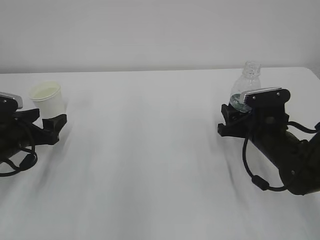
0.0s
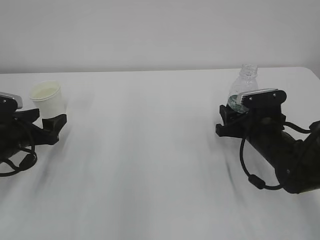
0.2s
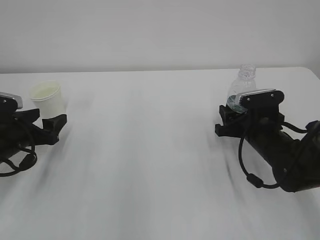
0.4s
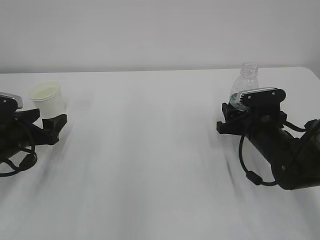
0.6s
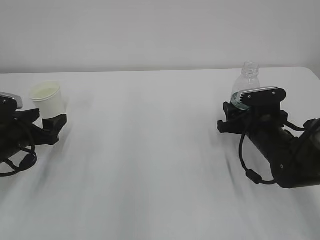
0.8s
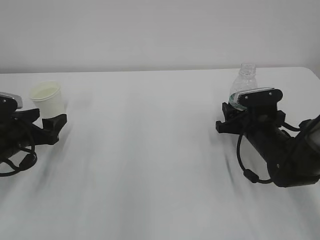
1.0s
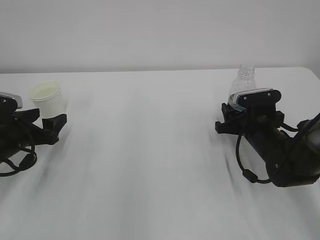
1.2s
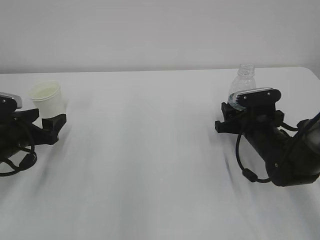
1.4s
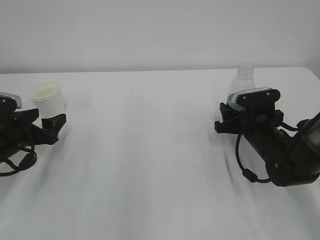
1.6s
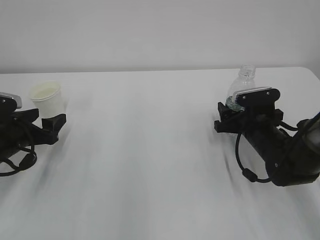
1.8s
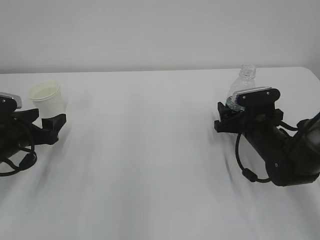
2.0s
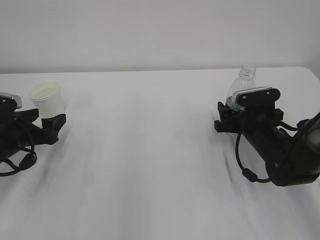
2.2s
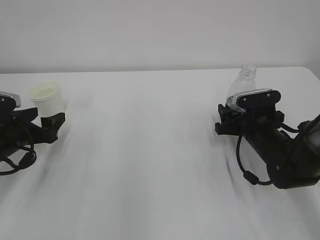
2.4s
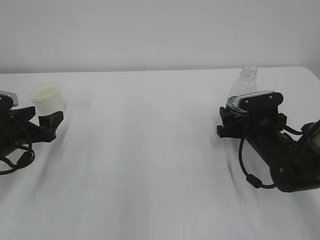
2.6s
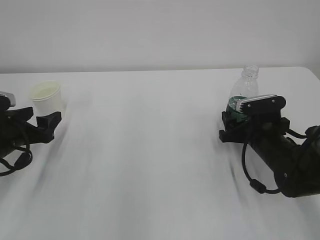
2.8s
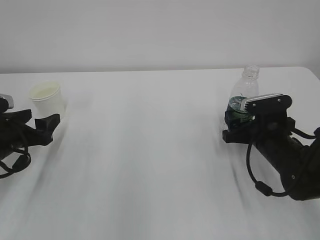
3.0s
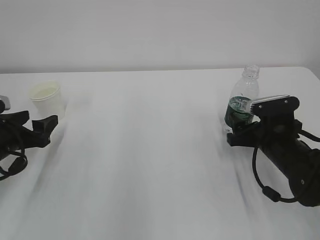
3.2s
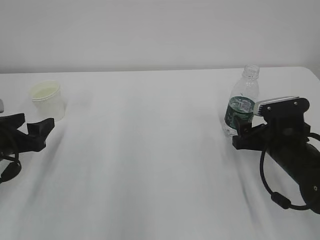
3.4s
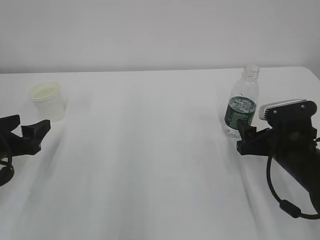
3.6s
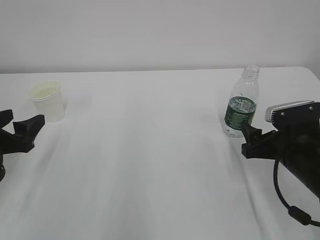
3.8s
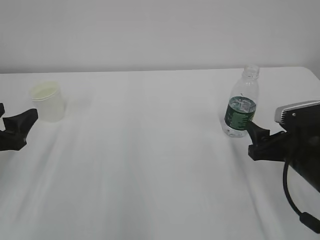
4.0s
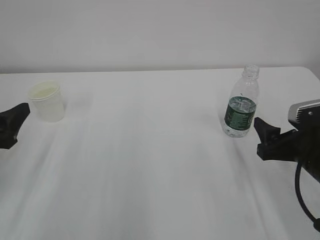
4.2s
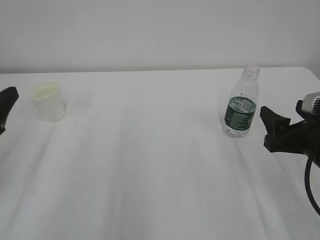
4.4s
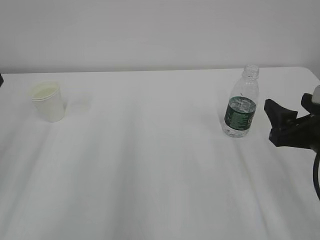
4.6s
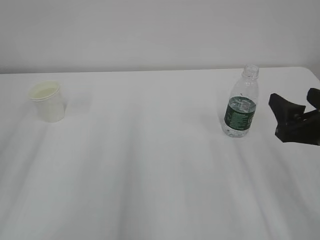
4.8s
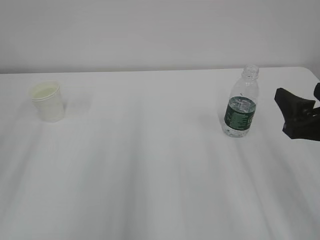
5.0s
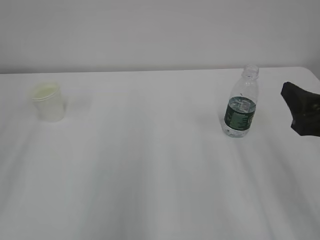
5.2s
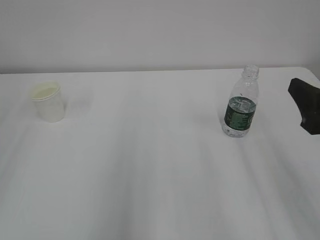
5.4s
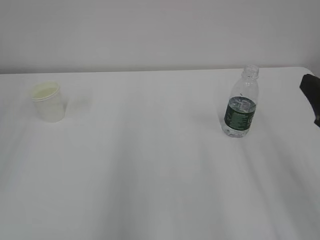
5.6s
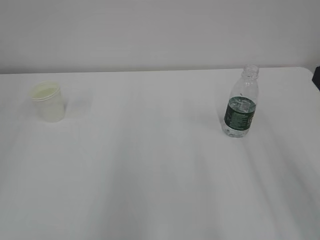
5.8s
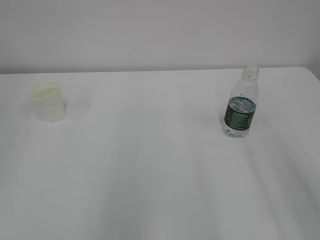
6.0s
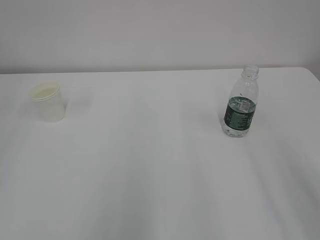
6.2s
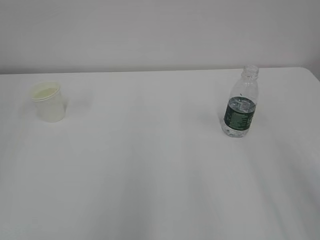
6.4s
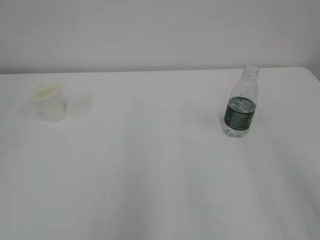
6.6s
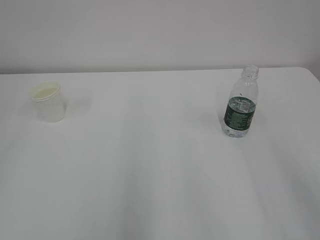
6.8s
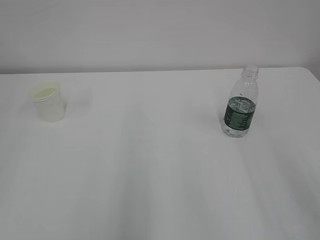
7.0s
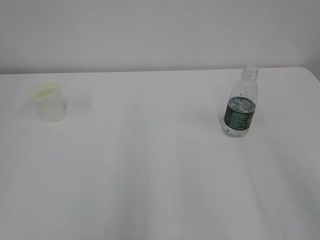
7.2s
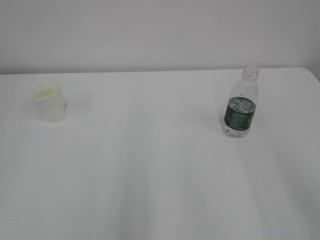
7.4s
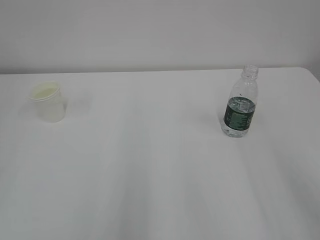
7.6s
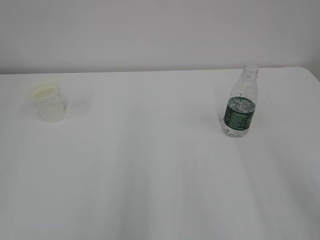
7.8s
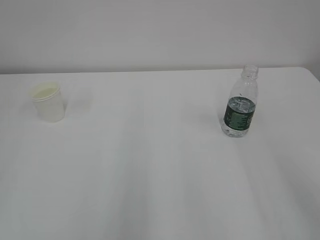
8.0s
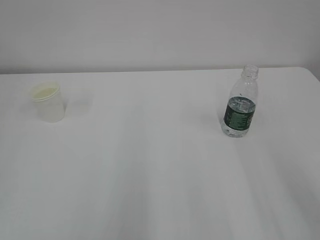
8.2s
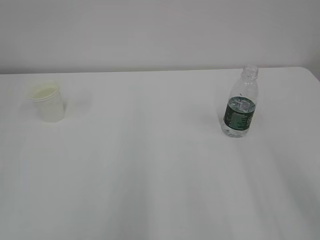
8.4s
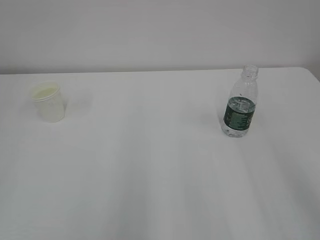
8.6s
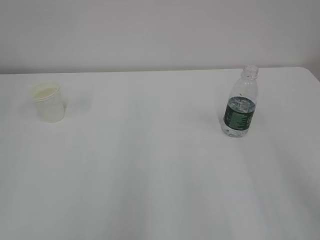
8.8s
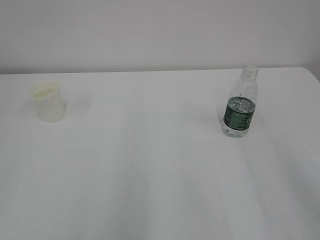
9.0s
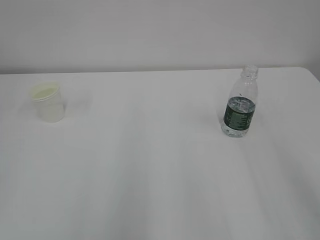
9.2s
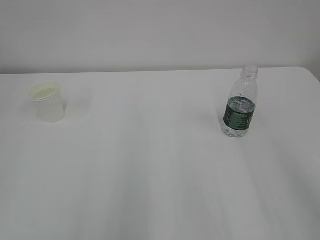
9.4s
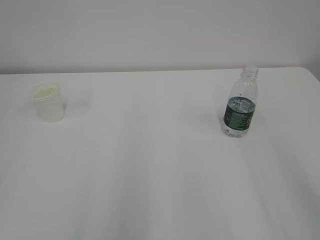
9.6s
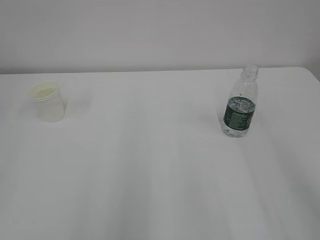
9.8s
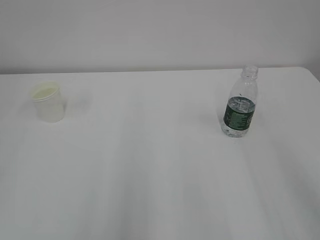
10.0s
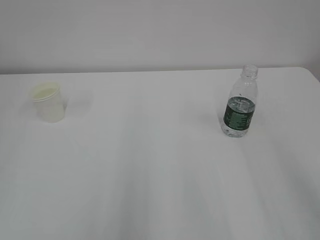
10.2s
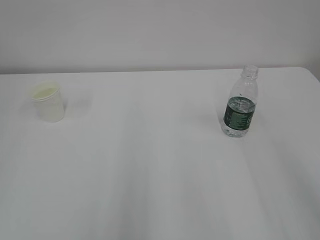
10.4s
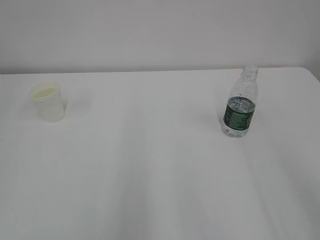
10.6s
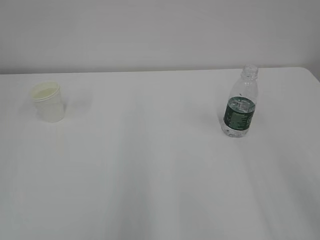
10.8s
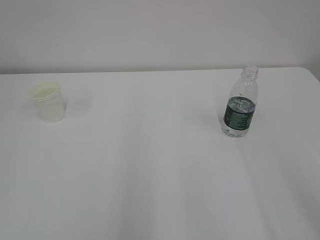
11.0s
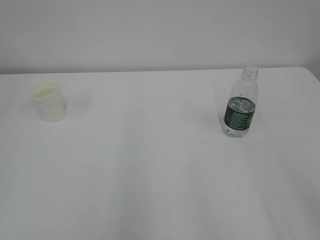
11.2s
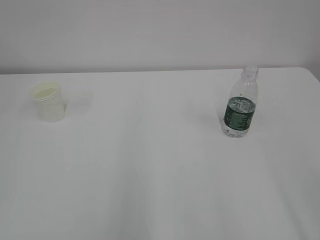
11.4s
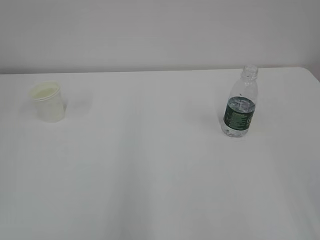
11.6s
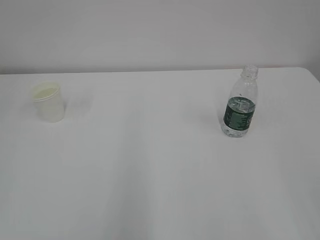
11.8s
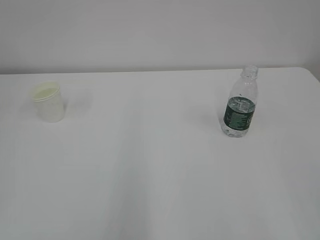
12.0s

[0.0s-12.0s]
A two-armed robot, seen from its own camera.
0.0s to 1.6s: There are only small adjustments of the grippers.
1.6s to 3.0s: The right gripper opens up.
3.0s to 4.4s: The left gripper moves upward and backward, approximately 15 cm, while the right gripper goes roughly 15 cm backward and upward.
4.4s to 6.0s: The grippers both shift upward and backward by roughly 20 cm.

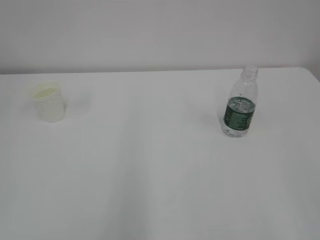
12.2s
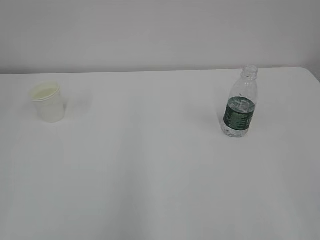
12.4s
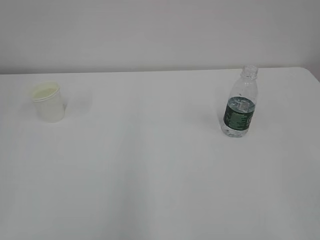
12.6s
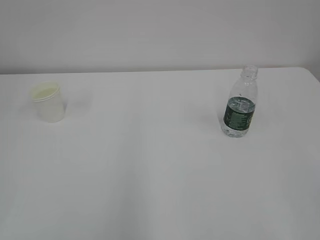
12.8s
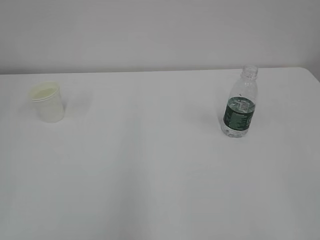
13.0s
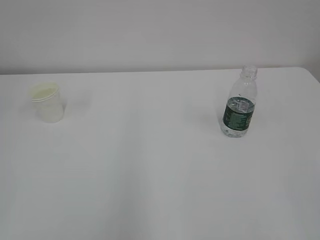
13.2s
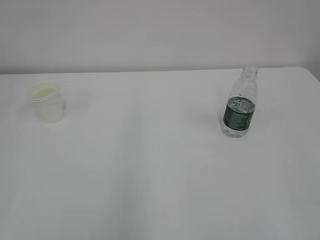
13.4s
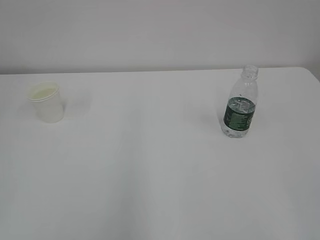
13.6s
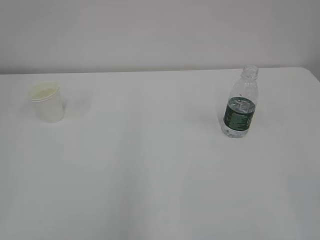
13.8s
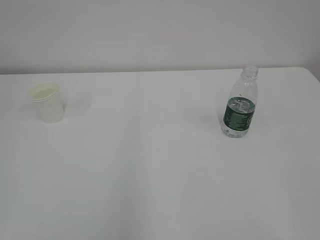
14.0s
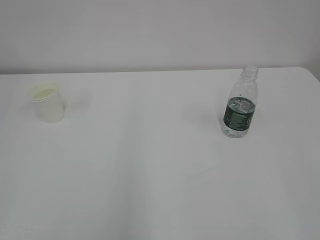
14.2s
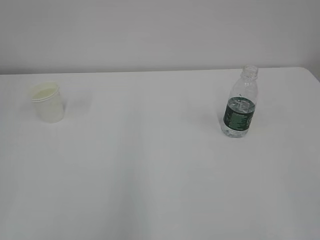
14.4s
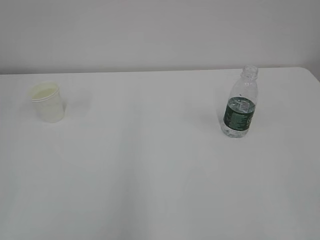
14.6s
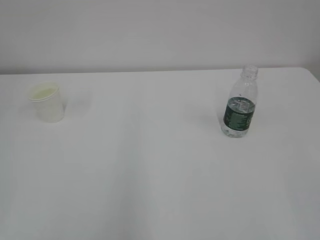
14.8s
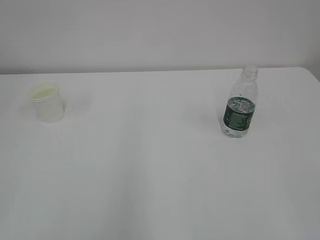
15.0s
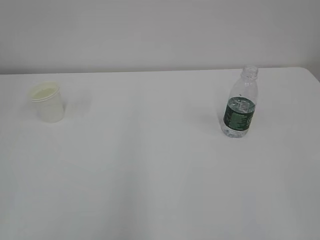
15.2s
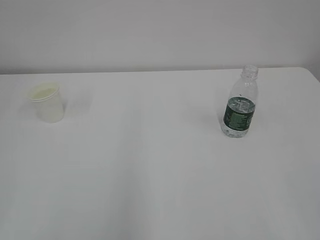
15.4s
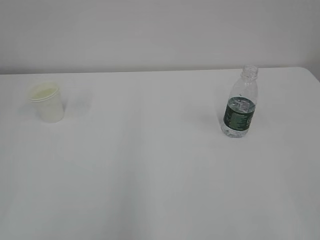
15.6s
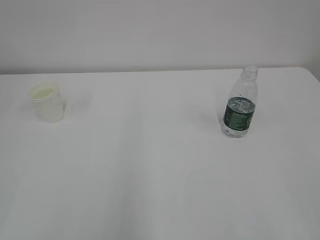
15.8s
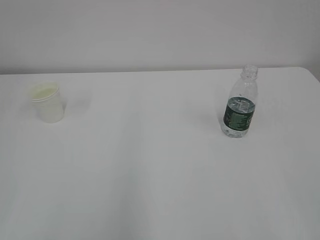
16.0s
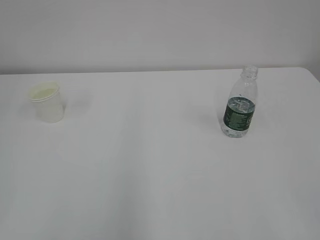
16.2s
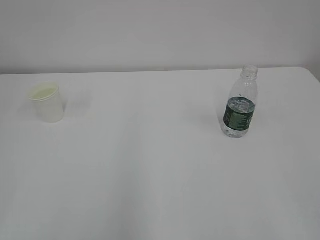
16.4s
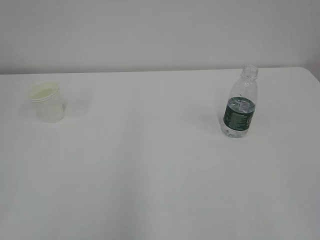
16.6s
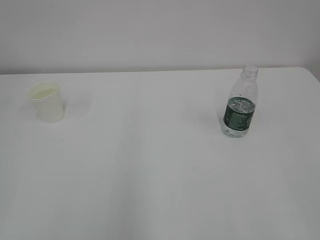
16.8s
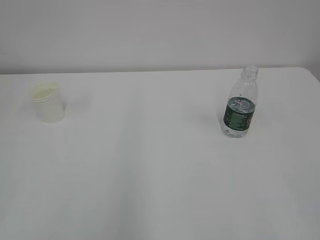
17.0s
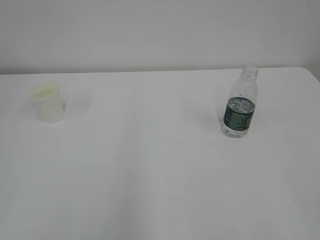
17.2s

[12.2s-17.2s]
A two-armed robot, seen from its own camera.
15.6s to 17.2s: Both grippers stay put.

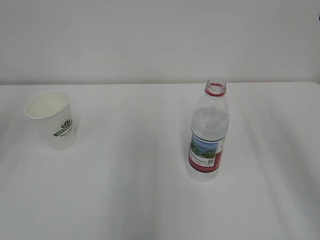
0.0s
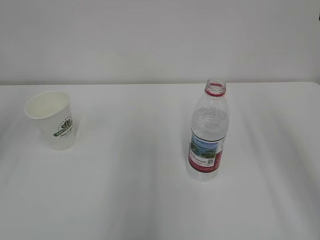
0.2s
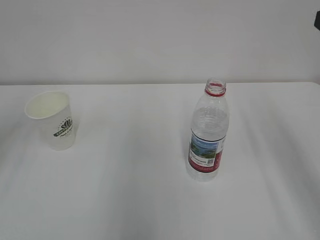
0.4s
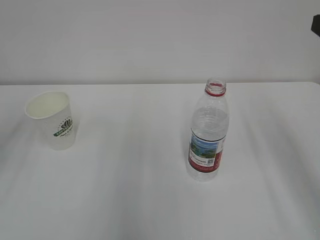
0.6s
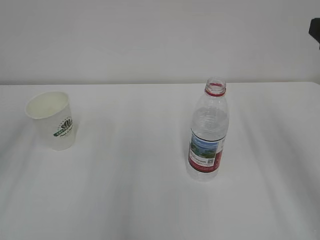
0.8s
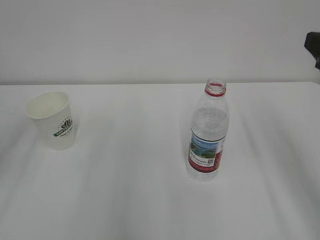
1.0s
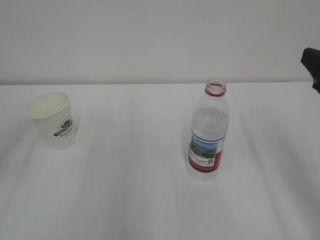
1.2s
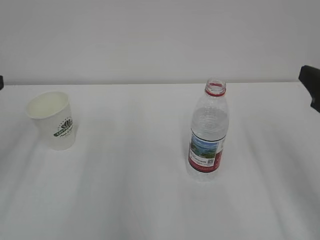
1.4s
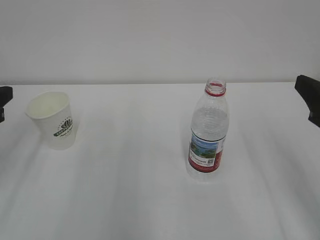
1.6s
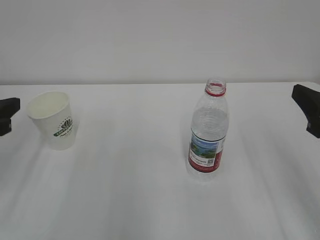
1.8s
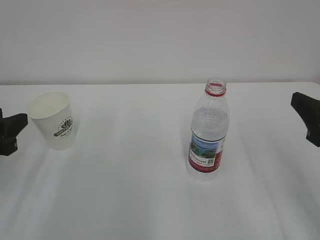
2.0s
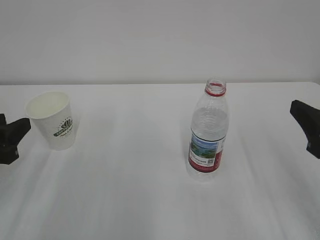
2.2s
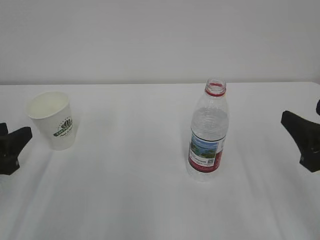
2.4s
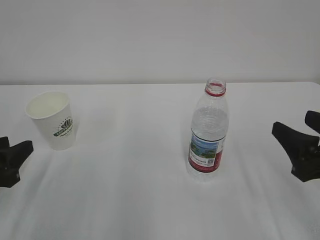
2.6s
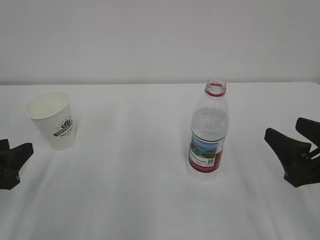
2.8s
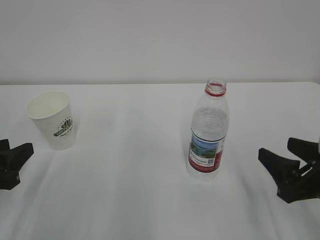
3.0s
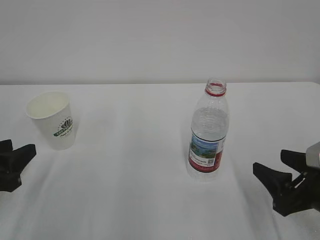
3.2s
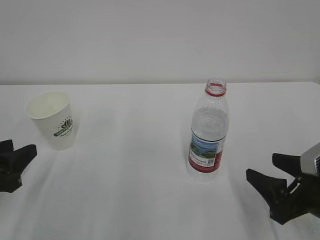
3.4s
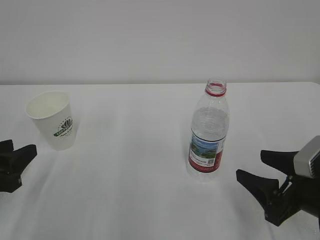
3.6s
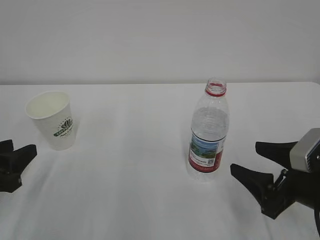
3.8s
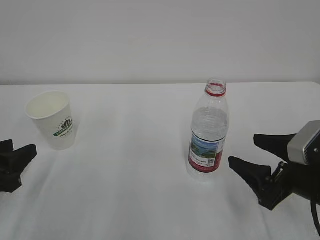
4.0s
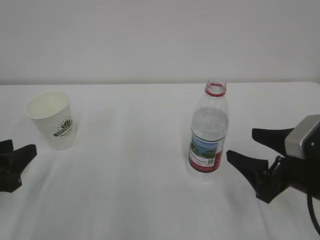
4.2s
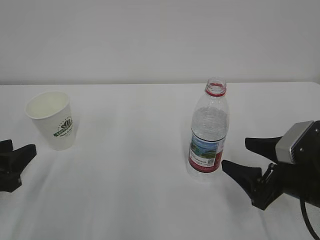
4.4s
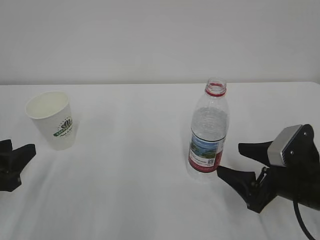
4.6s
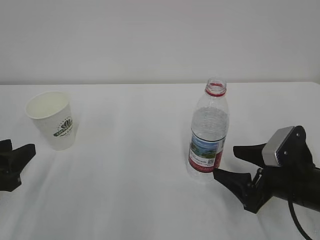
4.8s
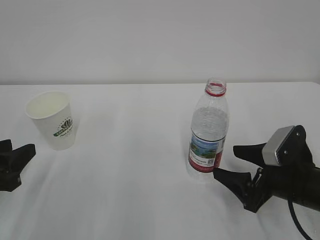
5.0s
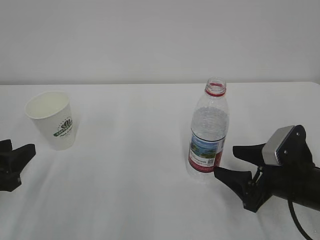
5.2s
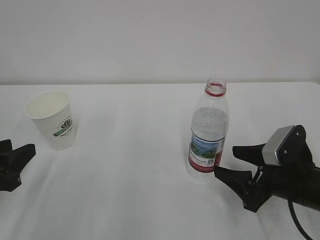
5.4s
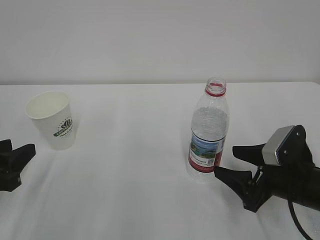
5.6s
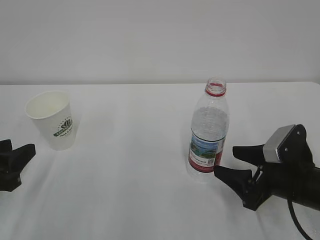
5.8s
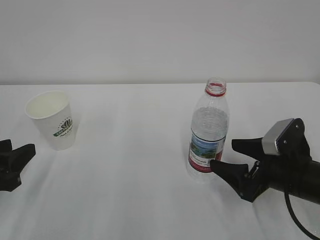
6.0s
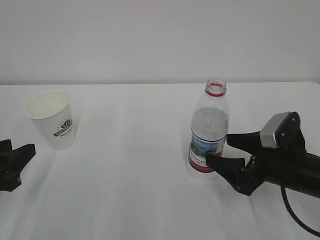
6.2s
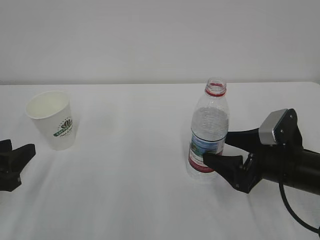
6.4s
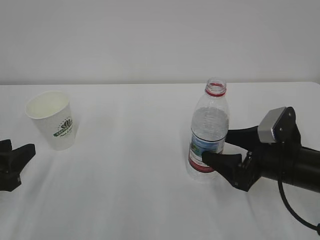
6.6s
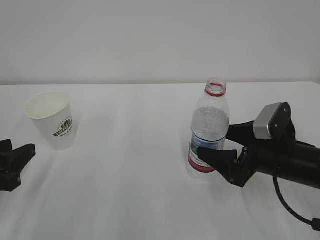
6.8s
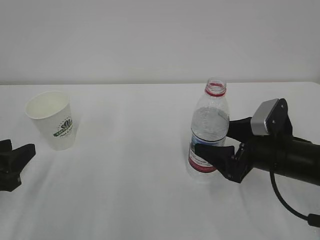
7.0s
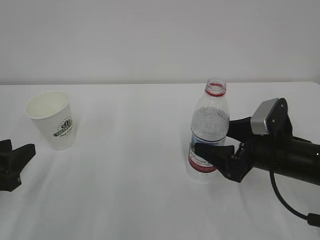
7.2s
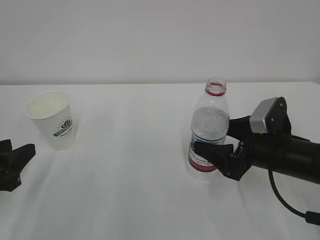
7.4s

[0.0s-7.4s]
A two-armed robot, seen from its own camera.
0.0s to 1.4s: The right gripper is displaced downward by roughly 10 cm.
1.4s to 3.0s: The grippers both shift downward by approximately 10 cm.
3.0s to 4.4s: The right gripper opens its fingers.
4.4s to 7.4s: The grippers stay close to where they were, moving slightly.
